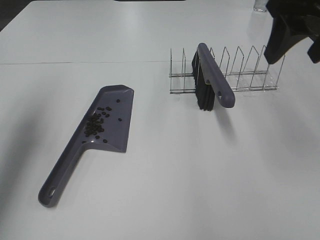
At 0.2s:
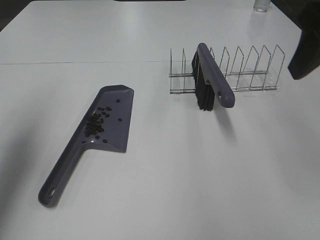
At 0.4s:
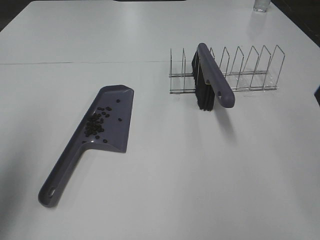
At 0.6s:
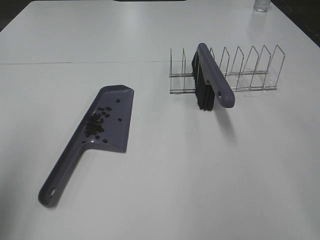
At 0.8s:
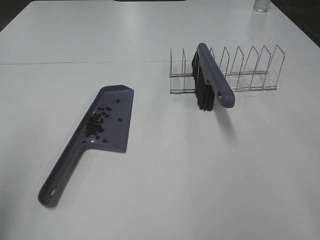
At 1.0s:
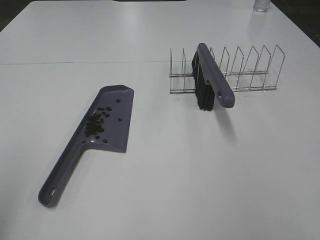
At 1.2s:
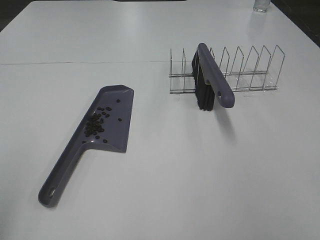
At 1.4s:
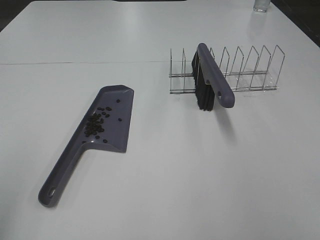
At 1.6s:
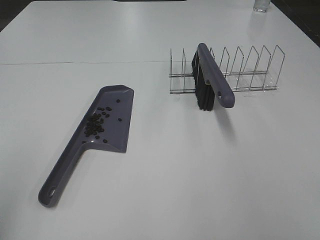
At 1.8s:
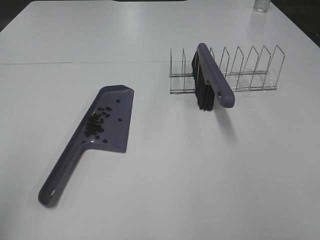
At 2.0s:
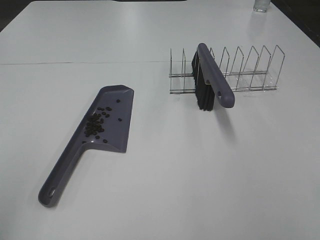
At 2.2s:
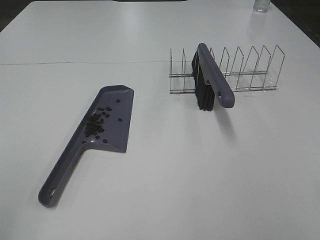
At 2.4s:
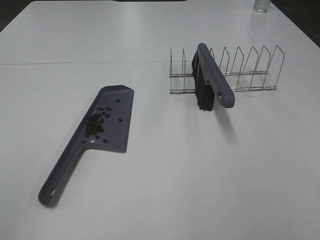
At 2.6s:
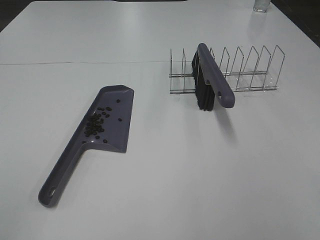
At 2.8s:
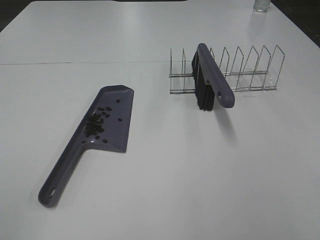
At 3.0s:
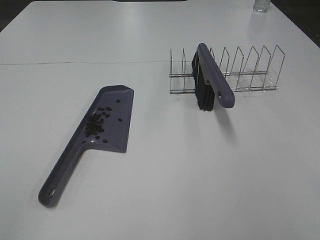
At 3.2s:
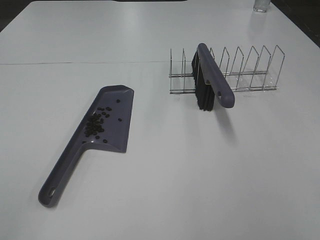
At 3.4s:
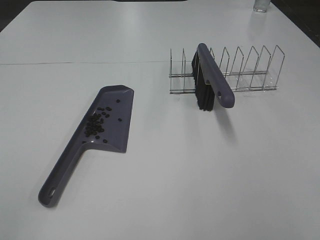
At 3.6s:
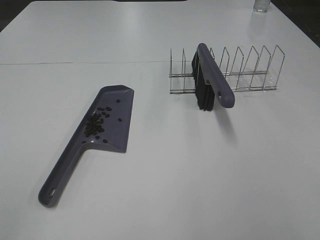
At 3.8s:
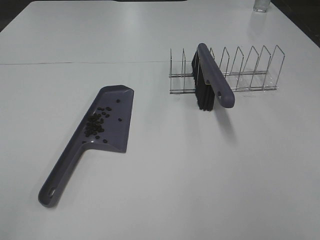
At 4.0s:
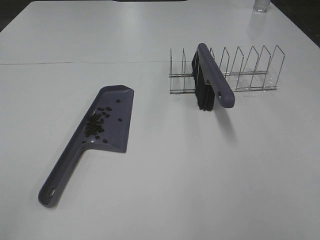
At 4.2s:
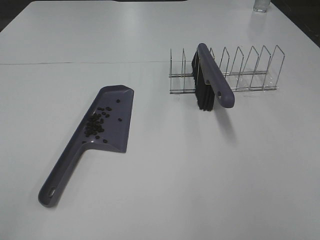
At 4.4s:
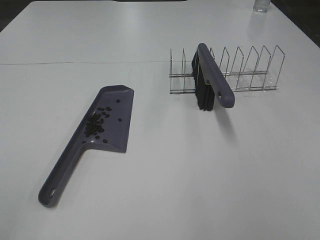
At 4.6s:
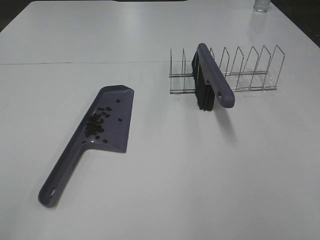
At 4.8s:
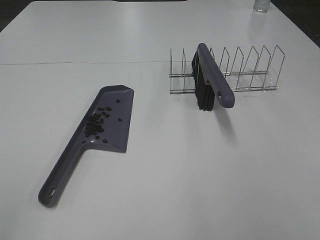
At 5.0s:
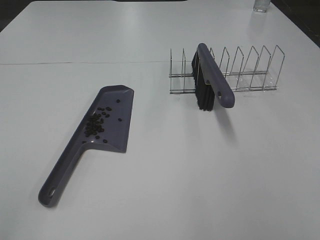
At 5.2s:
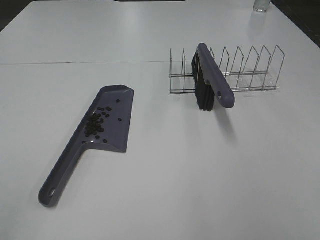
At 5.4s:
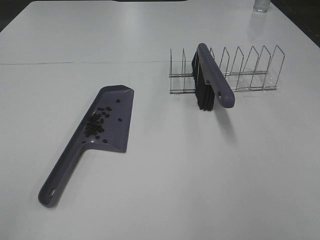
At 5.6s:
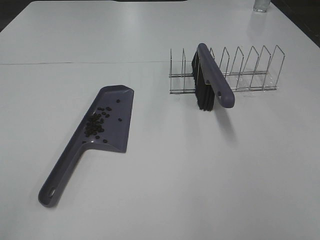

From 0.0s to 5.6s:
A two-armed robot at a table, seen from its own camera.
Task of the whole recording: Sweep Coffee Bean.
From 0.0s to 1.4s: The two grippers go some 25 cm backward.
From 4.2s to 5.6s: Both grippers stay about where they are.
